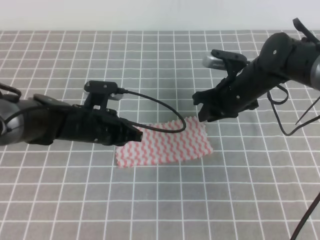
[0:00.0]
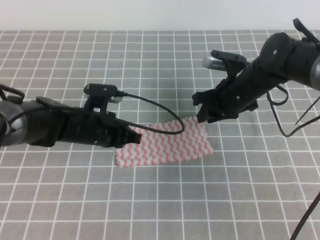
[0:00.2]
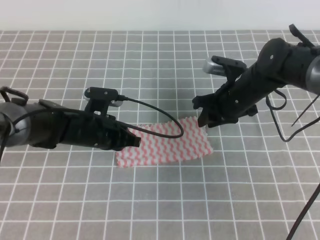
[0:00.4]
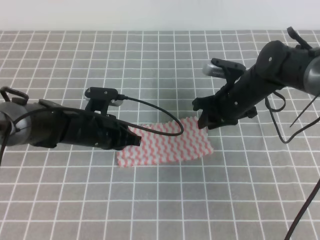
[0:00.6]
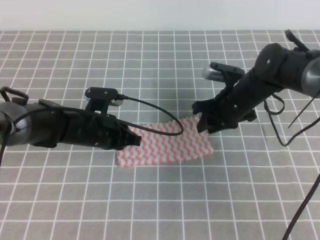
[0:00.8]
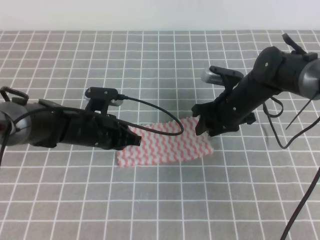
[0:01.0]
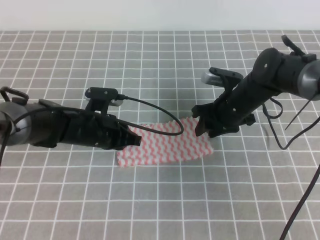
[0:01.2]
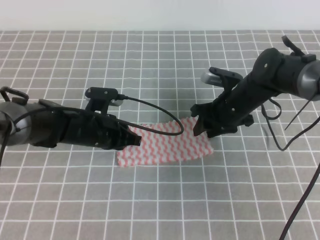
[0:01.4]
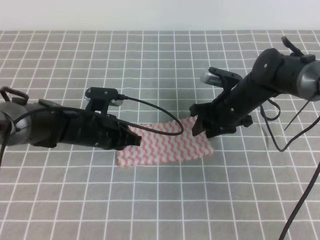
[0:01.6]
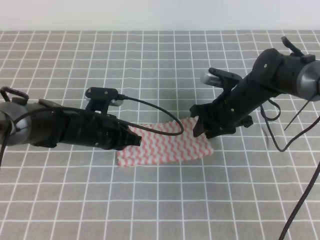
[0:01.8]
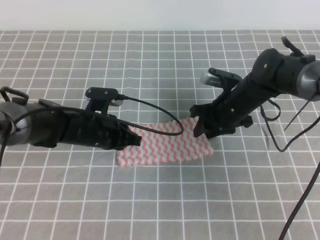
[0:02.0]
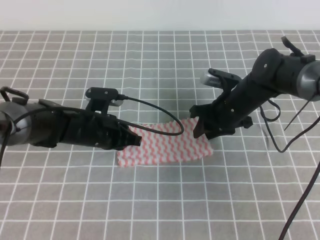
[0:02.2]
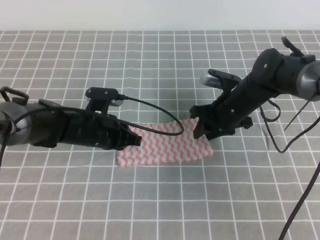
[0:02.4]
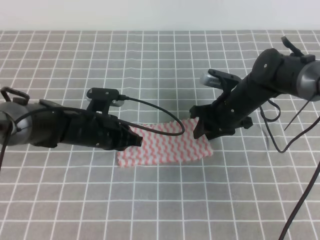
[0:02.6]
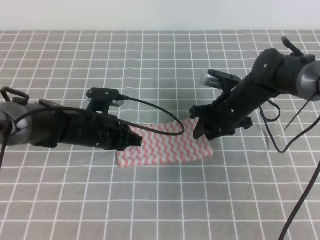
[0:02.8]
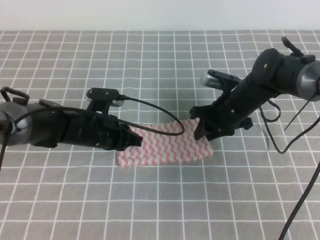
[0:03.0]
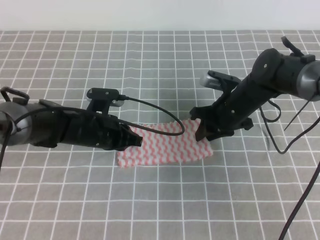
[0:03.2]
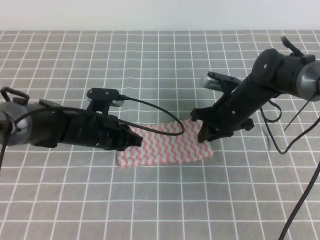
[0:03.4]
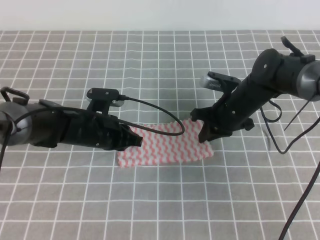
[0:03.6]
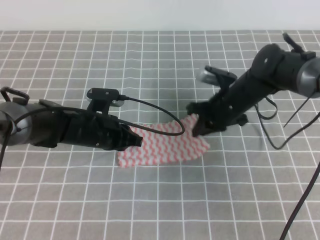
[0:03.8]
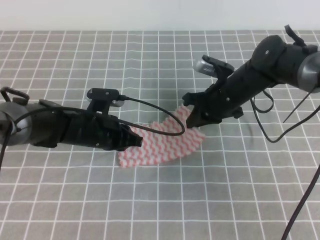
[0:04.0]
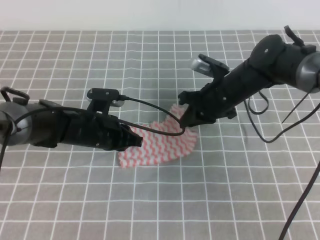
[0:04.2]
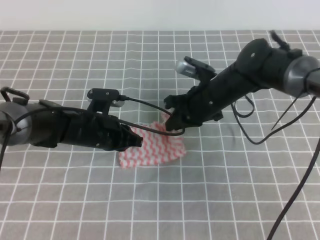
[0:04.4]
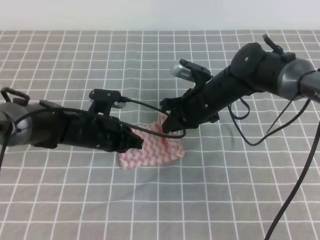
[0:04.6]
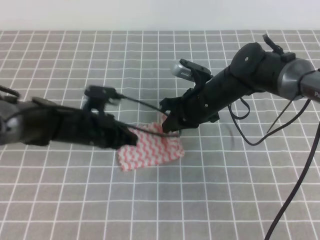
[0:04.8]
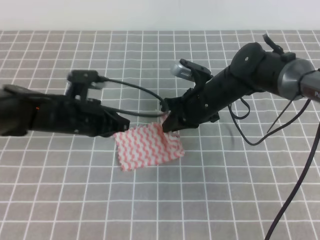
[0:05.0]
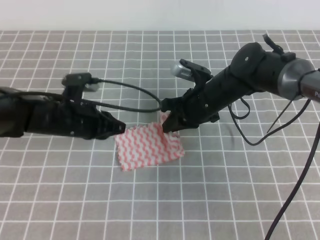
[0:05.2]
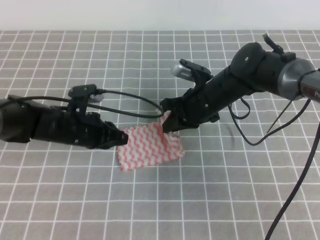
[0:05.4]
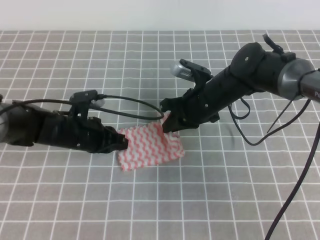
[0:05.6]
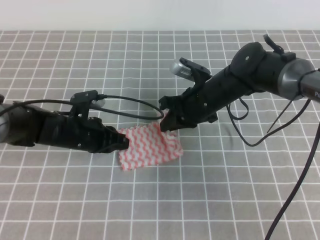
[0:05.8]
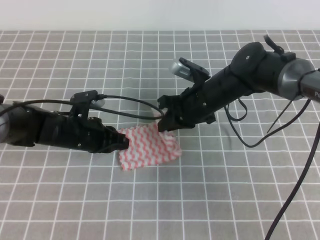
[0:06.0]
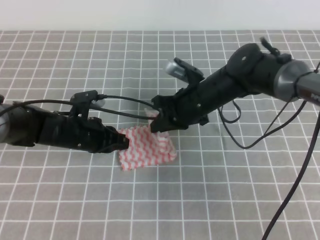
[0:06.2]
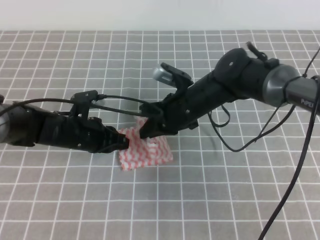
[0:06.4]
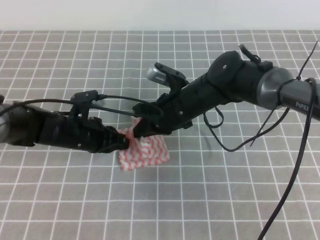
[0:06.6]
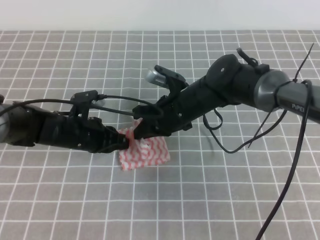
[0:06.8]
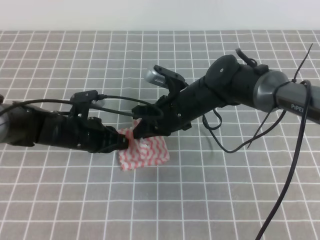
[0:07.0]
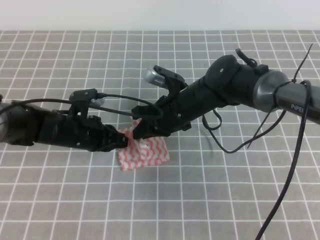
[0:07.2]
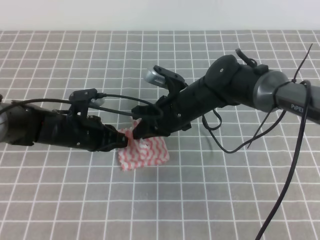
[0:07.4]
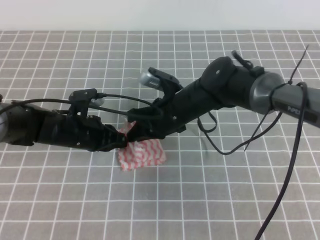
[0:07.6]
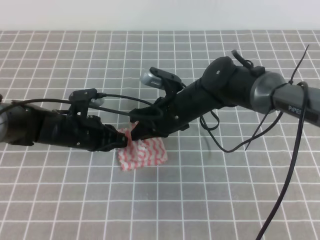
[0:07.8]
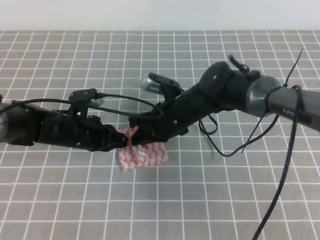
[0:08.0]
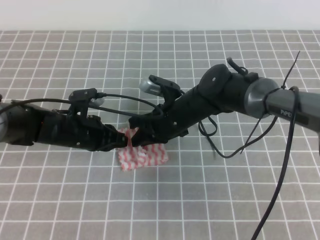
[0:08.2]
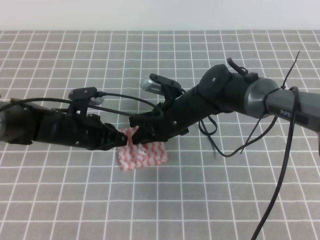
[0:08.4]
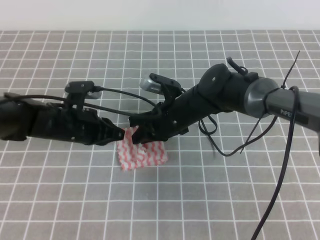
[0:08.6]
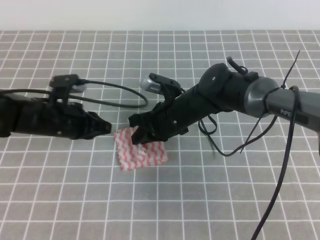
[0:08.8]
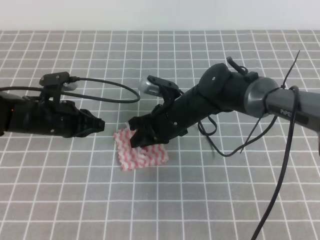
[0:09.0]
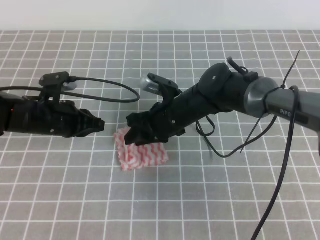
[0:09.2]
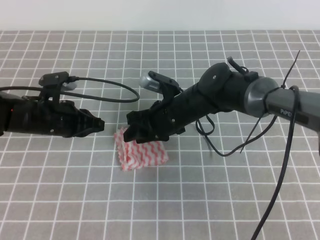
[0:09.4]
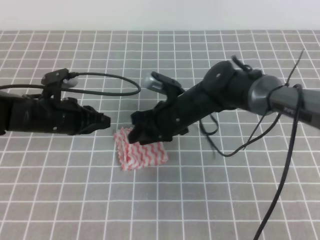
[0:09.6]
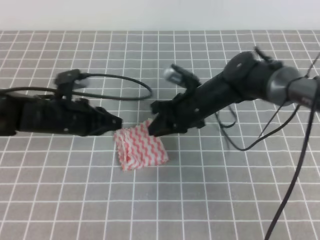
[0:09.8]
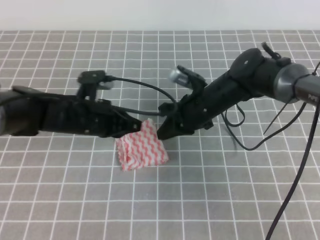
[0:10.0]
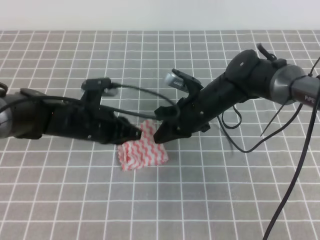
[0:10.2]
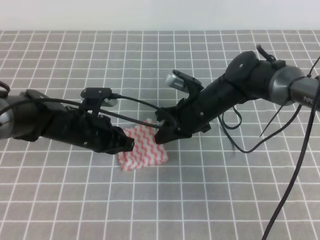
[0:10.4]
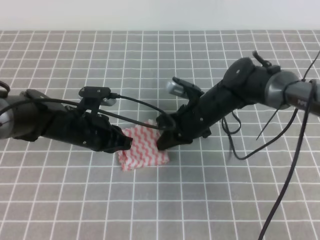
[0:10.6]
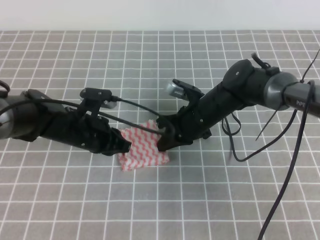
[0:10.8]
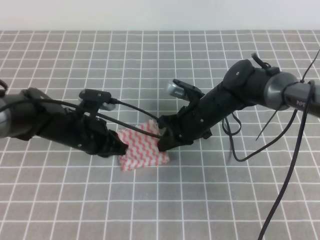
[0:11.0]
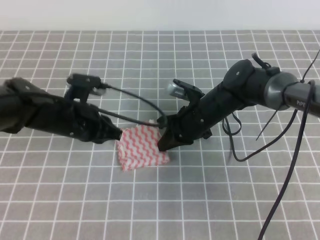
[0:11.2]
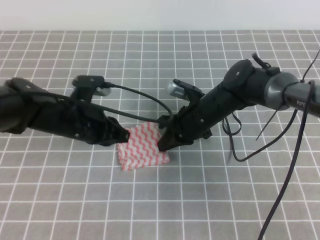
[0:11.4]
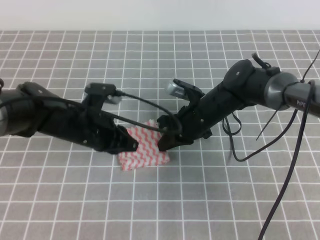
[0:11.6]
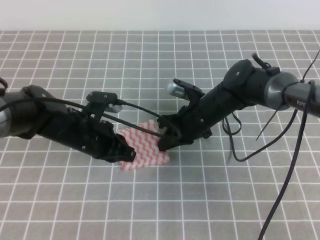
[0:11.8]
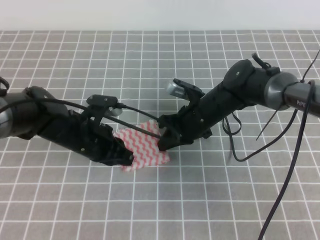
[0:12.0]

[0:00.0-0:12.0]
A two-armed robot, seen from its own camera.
0:00.0 to 0:01.6: The right gripper opens its fingers.
0:01.6 to 0:03.0: The two grippers keep their place.
0:03.0 to 0:04.4: The right gripper closes its fingers.
0:04.4 to 0:06.0: The grippers stay close to where they were, moving slightly.
0:06.0 to 0:07.6: The right gripper shifts by roughly 5 cm.
0:07.6 to 0:09.0: The grippers make only small movements.
0:09.0 to 0:10.4: The left gripper travels to the right by about 5 cm, while the right gripper shifts by approximately 5 cm, and opens, then closes again.
0:10.4 to 0:12.0: The grippers stay close to where they were, moving slightly.

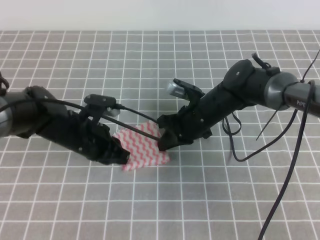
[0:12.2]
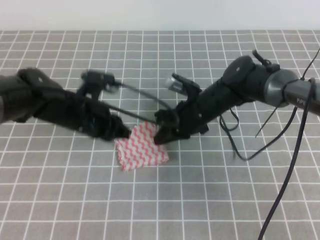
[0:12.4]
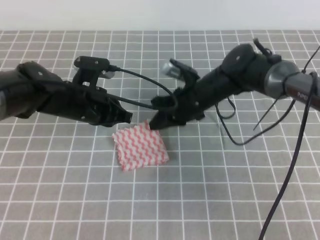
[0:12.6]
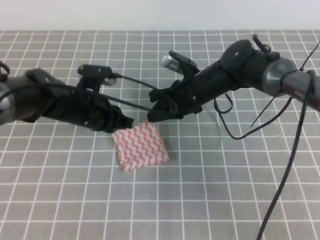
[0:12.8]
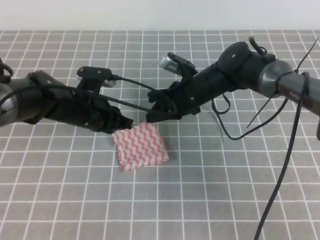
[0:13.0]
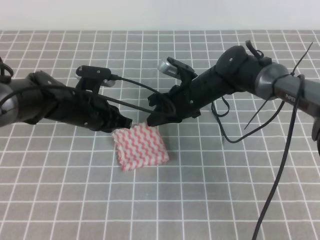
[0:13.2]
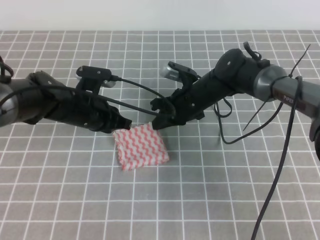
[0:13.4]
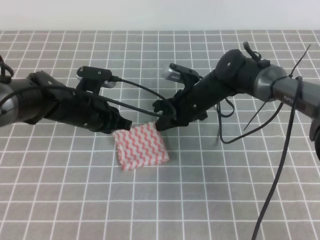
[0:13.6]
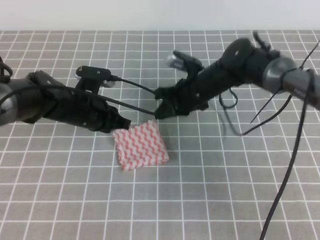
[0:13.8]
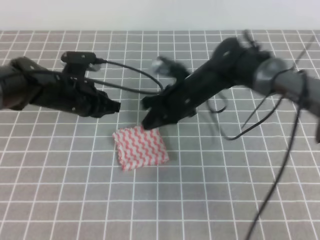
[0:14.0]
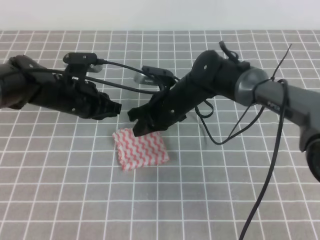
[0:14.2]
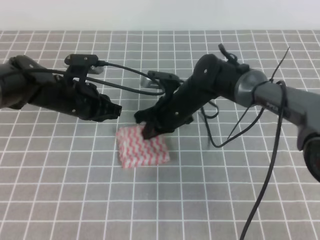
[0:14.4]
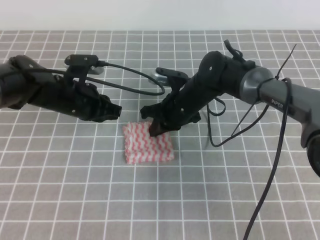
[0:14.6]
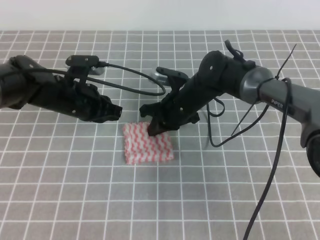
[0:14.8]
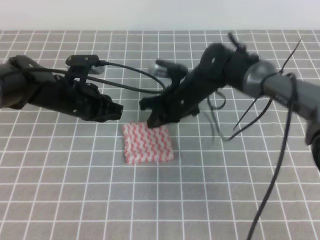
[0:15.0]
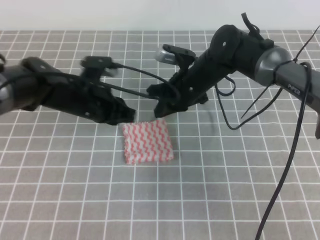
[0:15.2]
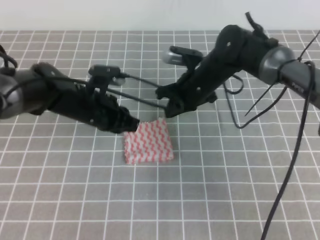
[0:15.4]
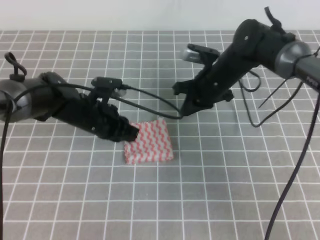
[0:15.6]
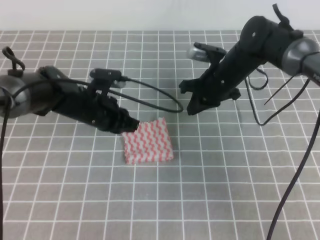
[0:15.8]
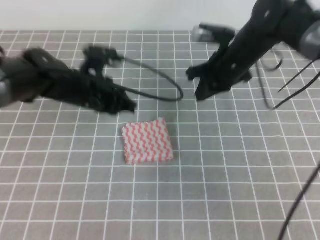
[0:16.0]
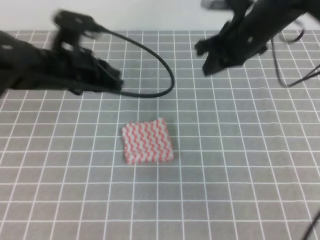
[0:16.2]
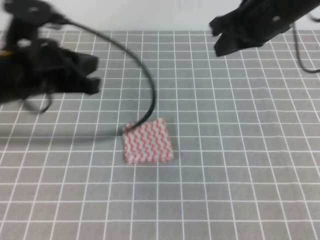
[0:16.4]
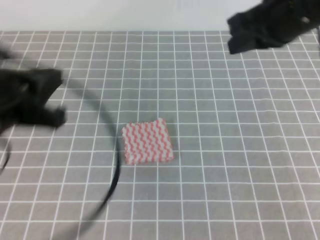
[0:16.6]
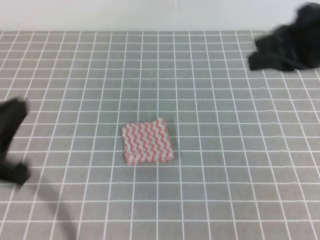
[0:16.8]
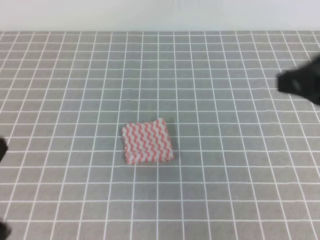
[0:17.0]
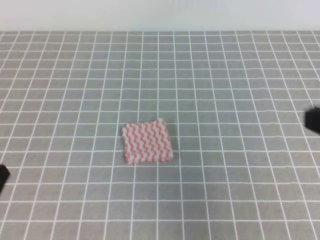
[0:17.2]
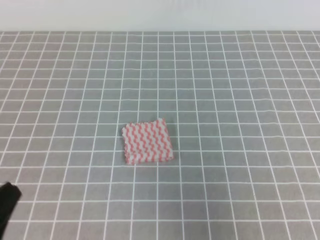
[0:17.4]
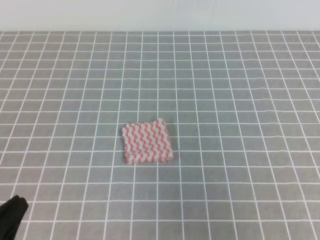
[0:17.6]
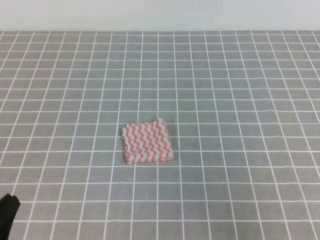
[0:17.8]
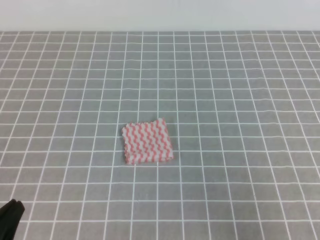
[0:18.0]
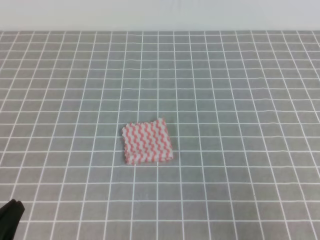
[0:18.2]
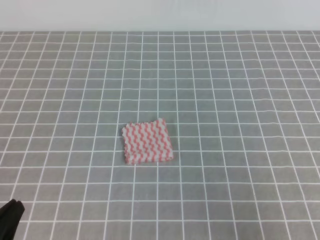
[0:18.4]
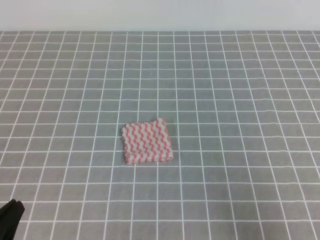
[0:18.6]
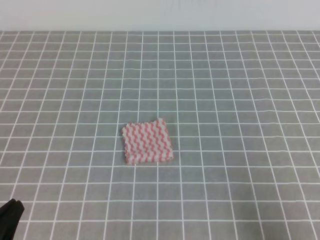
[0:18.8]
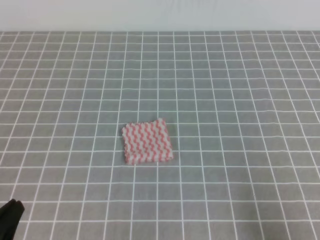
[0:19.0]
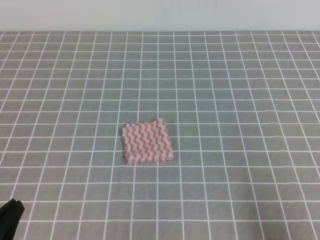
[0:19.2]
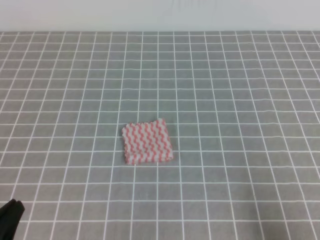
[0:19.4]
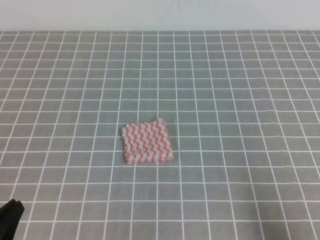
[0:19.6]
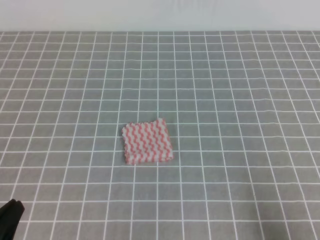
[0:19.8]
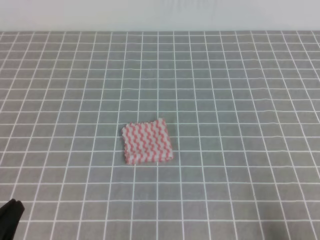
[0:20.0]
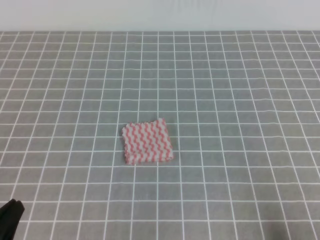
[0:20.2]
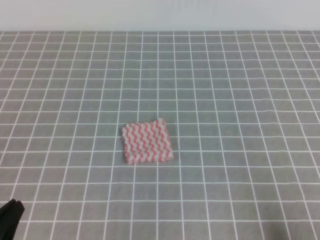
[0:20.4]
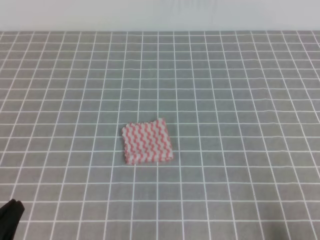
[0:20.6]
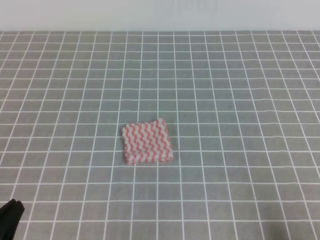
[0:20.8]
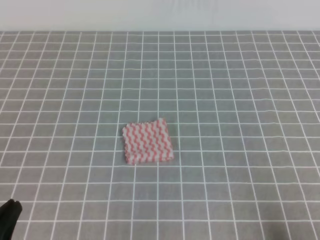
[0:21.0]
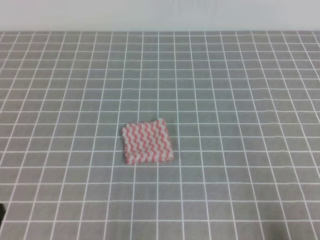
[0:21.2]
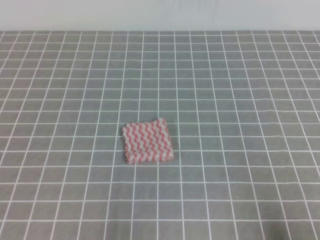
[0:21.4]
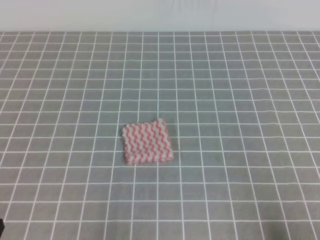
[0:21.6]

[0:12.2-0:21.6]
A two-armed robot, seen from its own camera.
Step, 0:12.2 to 0:21.6: Fold the towel.
0:13.8 to 0:15.4: The grippers move only a little.
0:15.4 to 0:17.0: The left gripper heads backward and upward, covering approximately 30 cm; the right gripper is displaced backward, upward and to the right by roughly 35 cm.
0:17.0 to 0:18.4: The right gripper travels downward, backward and to the right by approximately 20 cm, while the left gripper moves downward, approximately 10 cm.
0:18.4 to 0:20.0: The right gripper moves downward, approximately 5 cm.
0:20.0 to 0:21.6: The grippers make only small movements.
